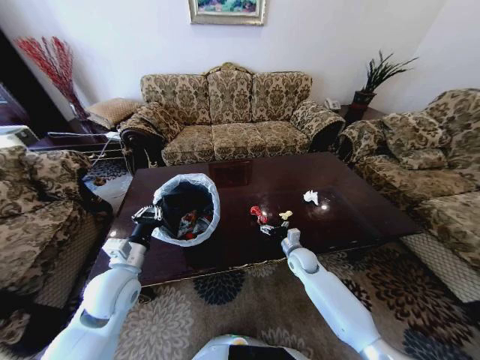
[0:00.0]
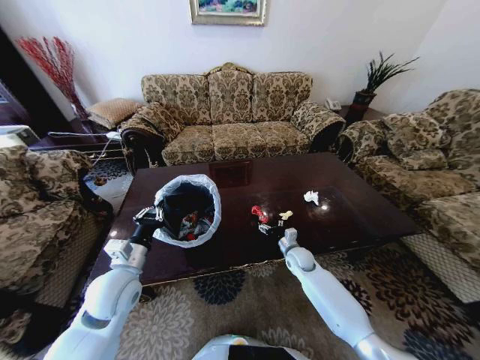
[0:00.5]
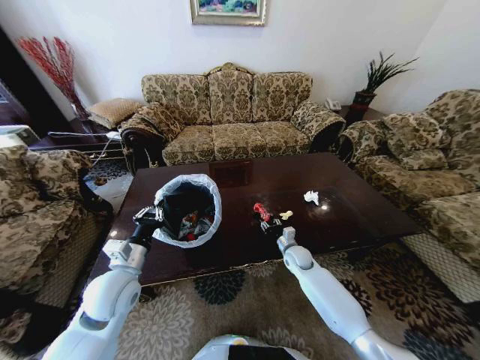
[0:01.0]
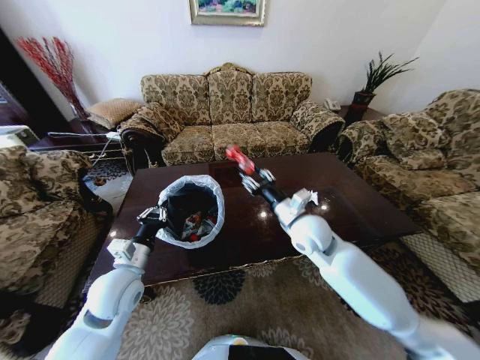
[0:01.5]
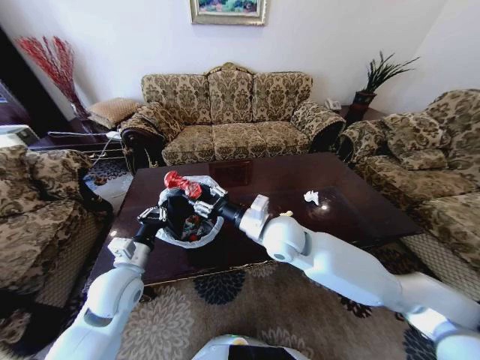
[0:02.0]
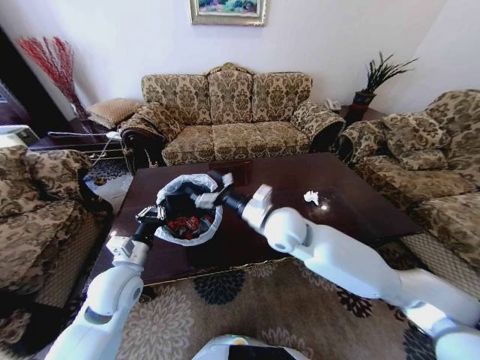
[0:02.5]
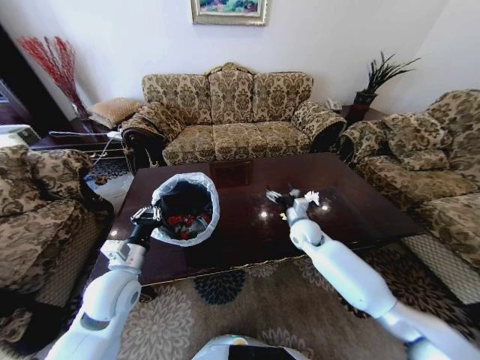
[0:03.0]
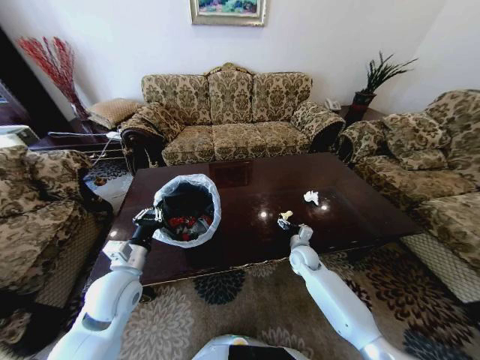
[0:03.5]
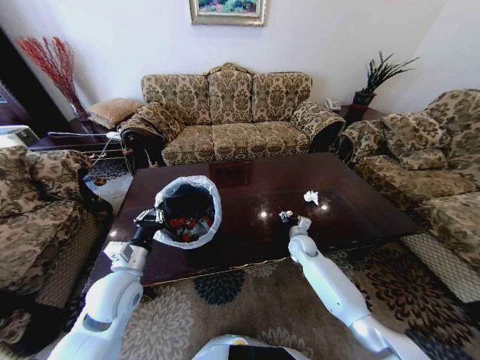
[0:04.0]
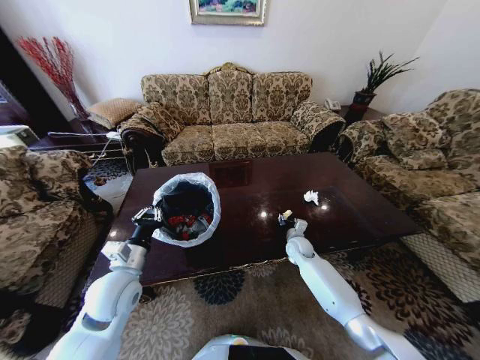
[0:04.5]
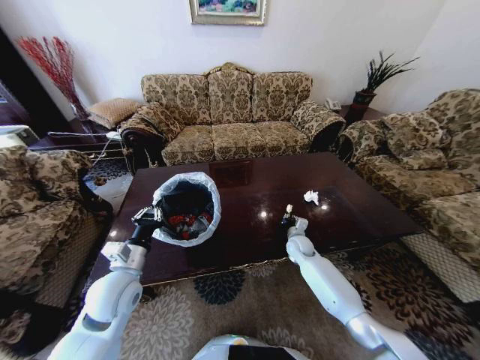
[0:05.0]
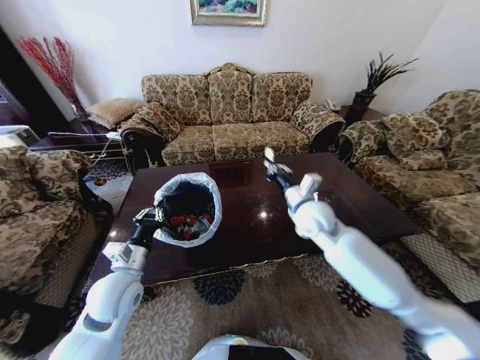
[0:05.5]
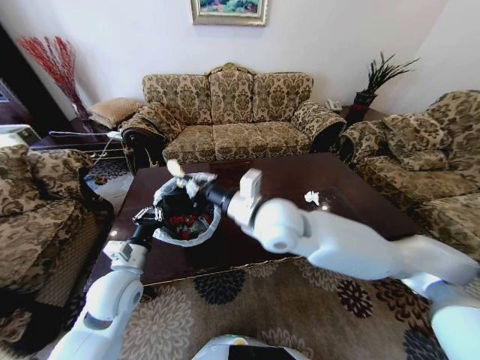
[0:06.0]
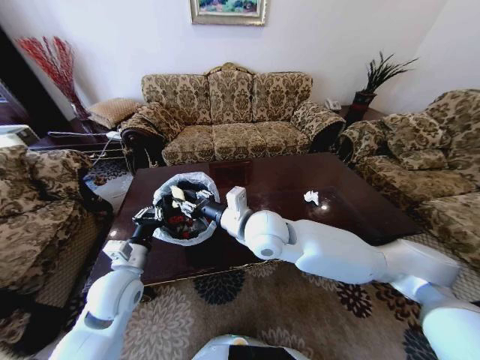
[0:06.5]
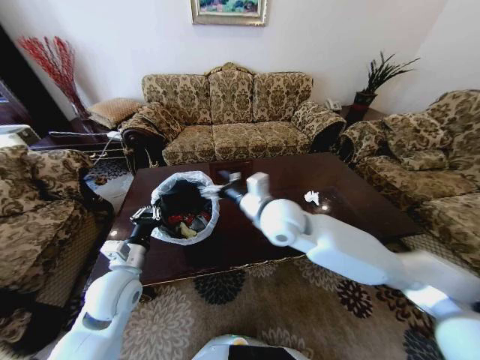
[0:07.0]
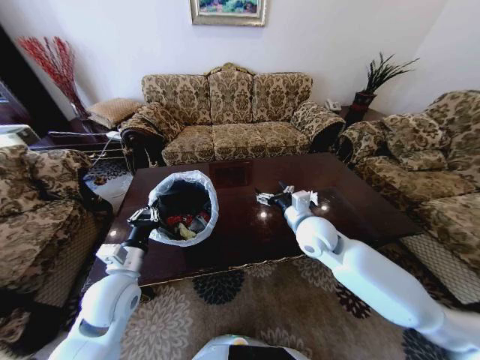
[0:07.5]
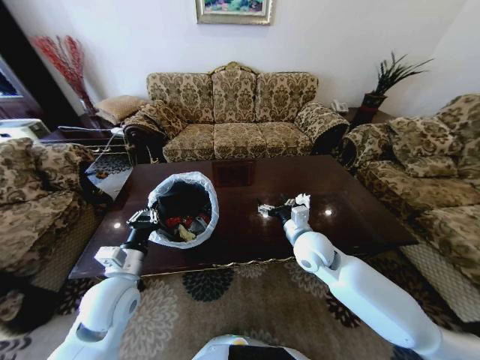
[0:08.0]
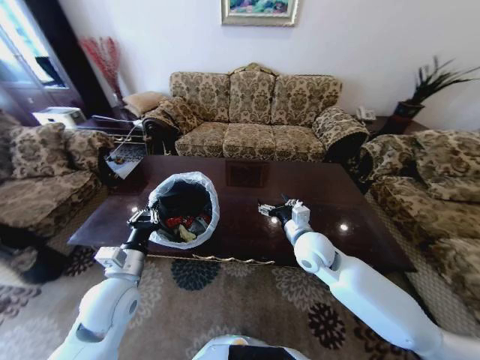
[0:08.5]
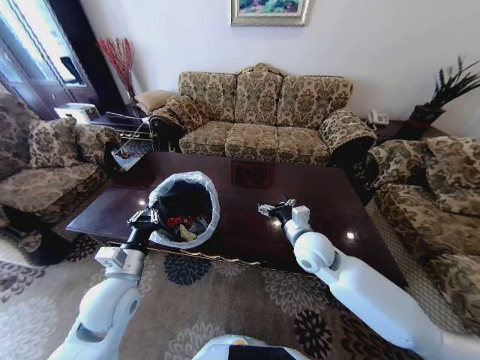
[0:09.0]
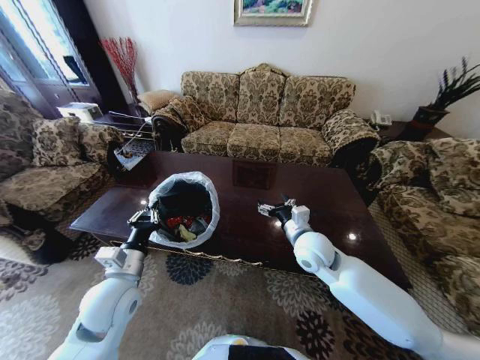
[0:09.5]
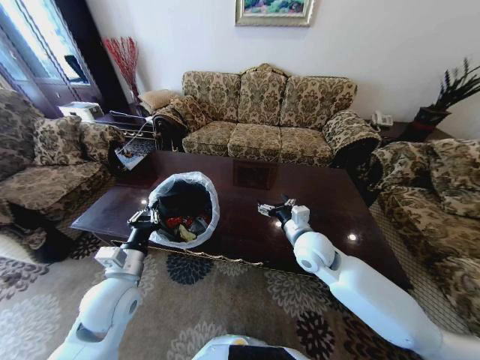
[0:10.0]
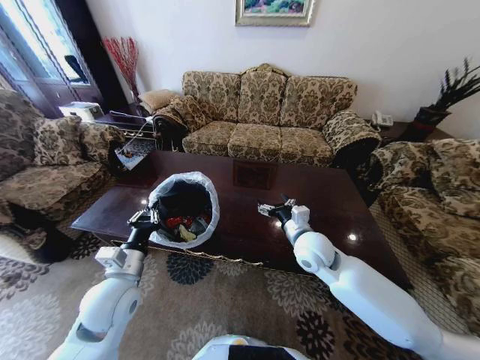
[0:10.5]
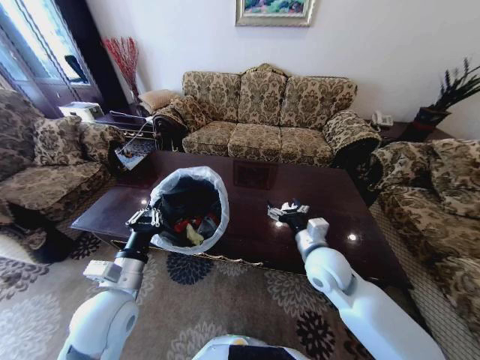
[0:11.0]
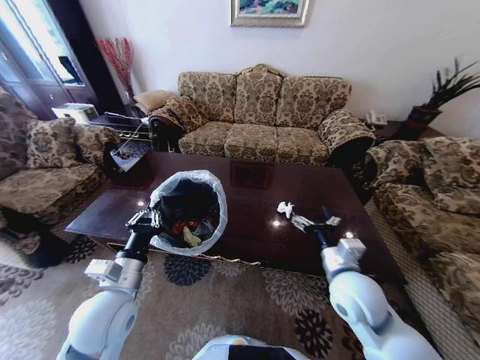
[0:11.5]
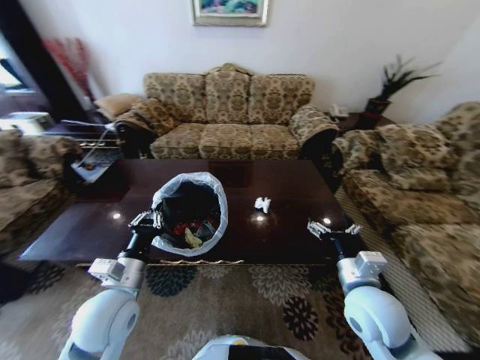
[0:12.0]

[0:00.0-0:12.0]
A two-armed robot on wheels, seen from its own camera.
Task of the whole recording: Move to the front of the table and place the trash on the table into the trash bin.
0:00.0 to 0:02.0: The right gripper is displaced upward and to the left by approximately 30 cm, and closes up.
0:02.0 to 0:04.0: The right gripper is displaced downward, to the right and forward by approximately 30 cm, and opens, then closes once more.
0:04.0 to 0:06.0: The right gripper travels upward, to the left and backward by about 40 cm, and closes up.
0:06.0 to 0:08.0: The right gripper goes approximately 20 cm downward and to the right, and opens.
0:10.0 to 0:12.0: The right gripper goes roughly 15 cm backward and to the right.

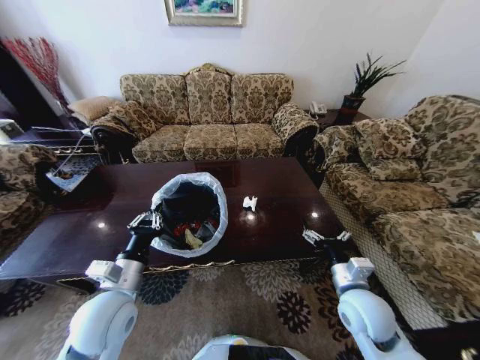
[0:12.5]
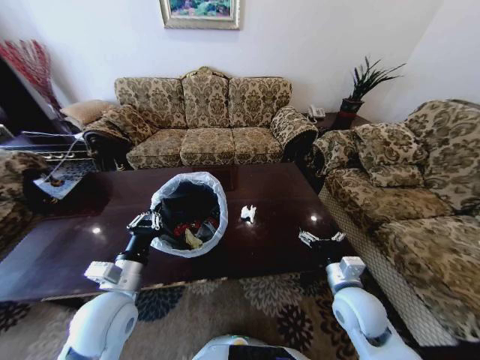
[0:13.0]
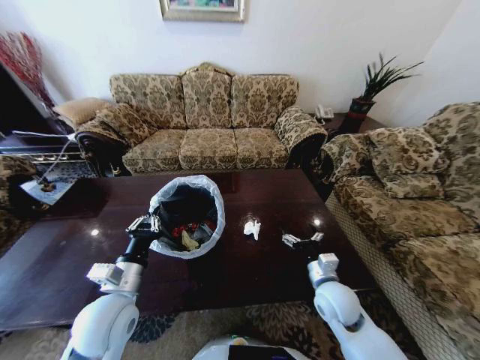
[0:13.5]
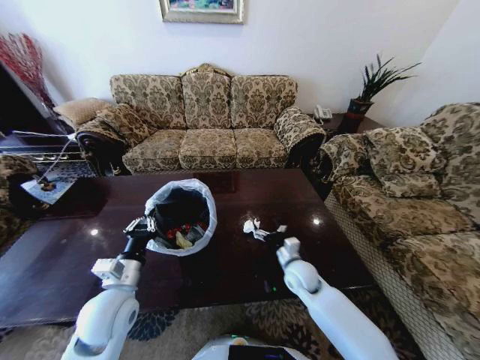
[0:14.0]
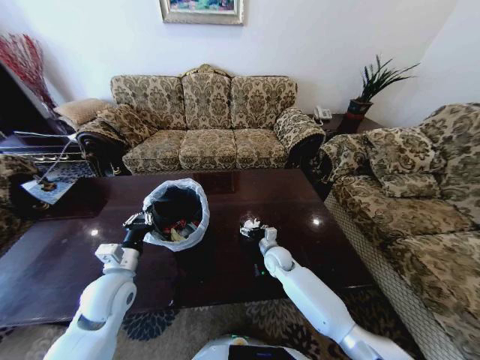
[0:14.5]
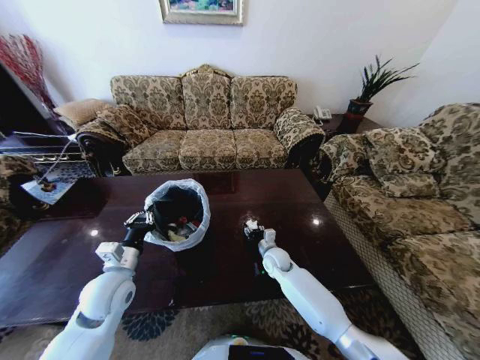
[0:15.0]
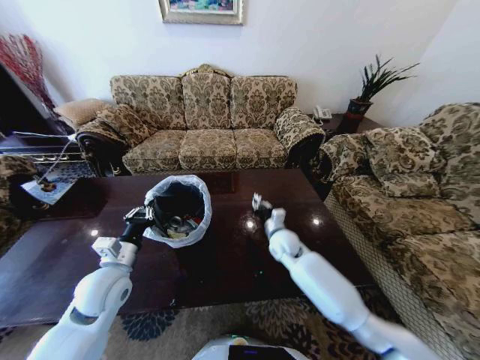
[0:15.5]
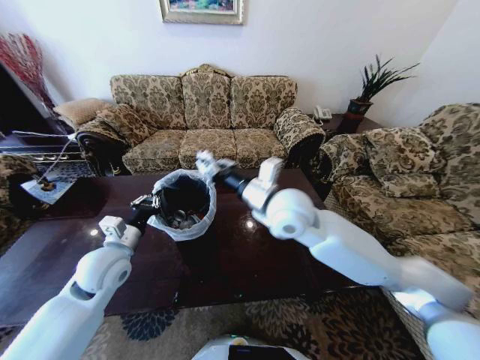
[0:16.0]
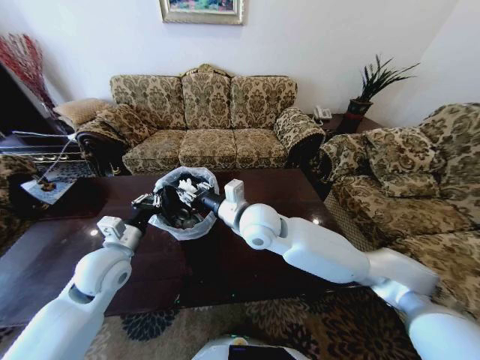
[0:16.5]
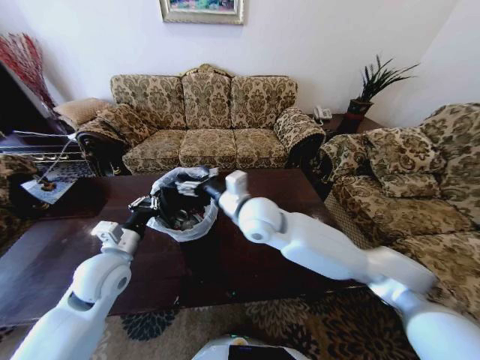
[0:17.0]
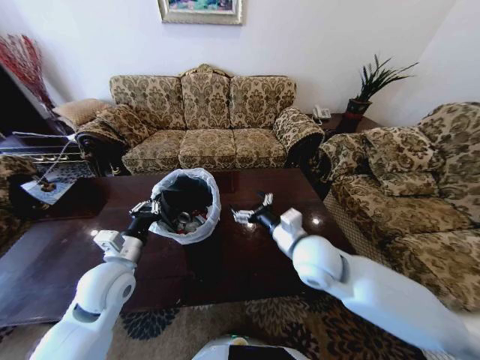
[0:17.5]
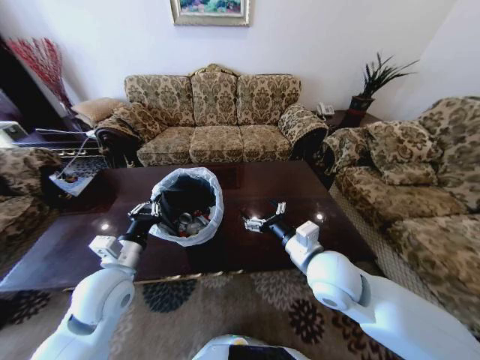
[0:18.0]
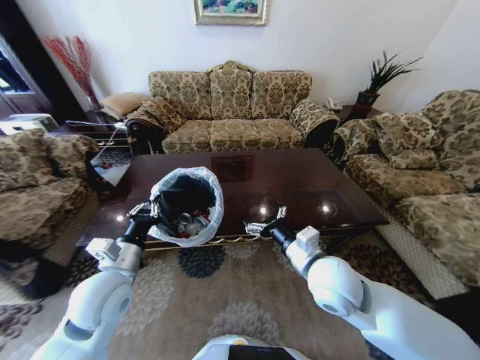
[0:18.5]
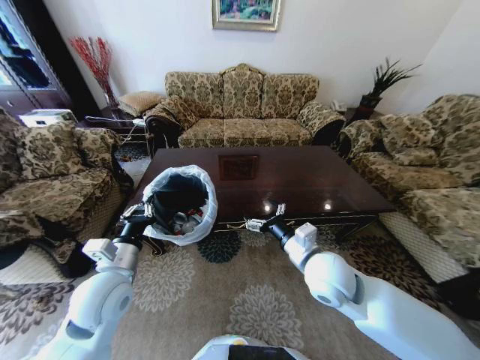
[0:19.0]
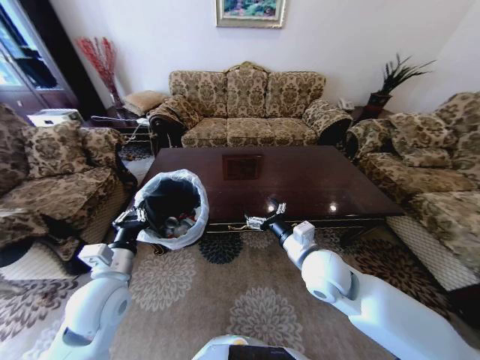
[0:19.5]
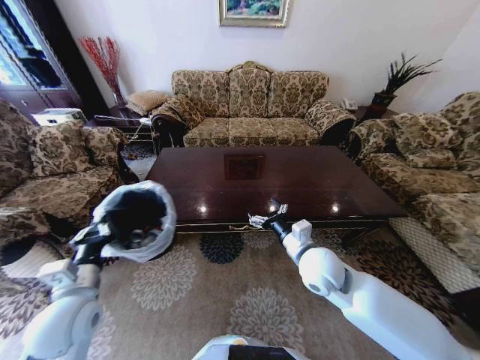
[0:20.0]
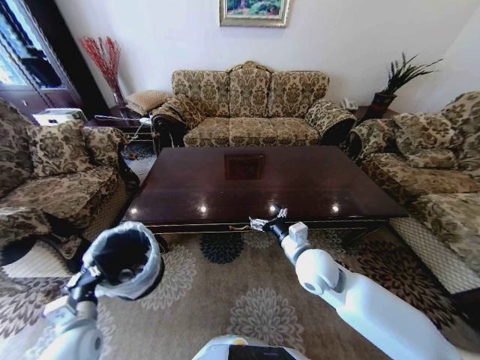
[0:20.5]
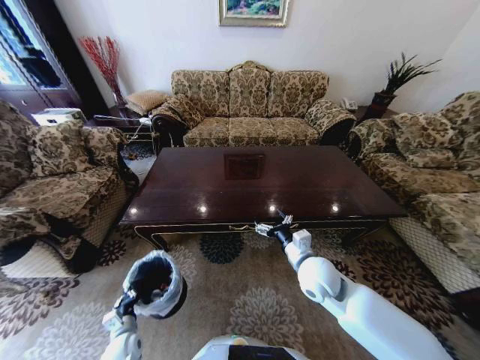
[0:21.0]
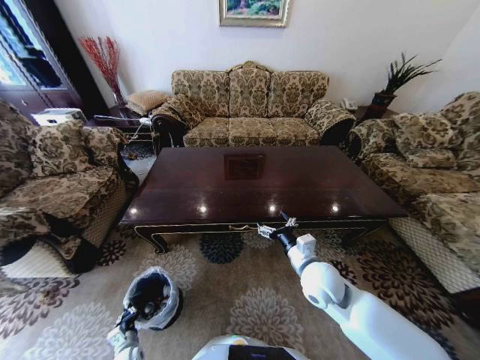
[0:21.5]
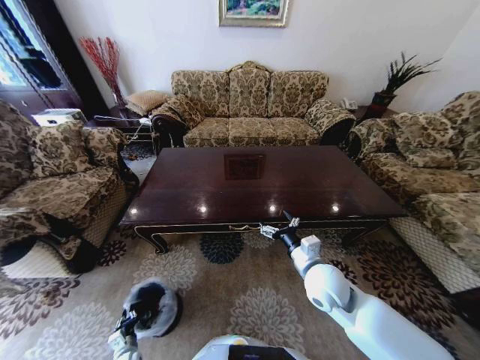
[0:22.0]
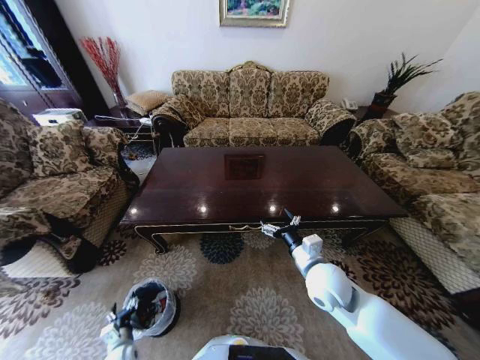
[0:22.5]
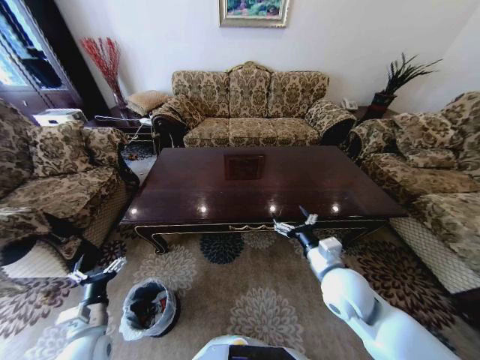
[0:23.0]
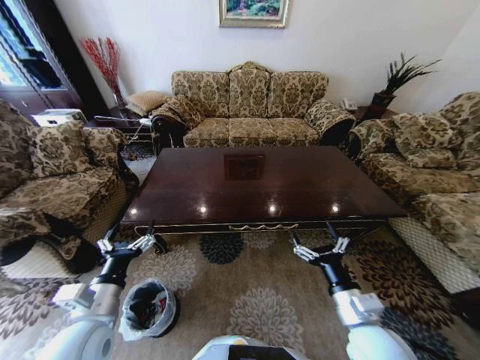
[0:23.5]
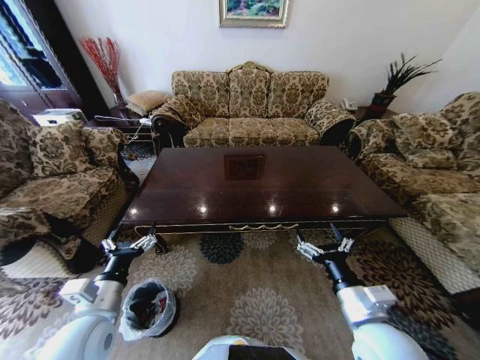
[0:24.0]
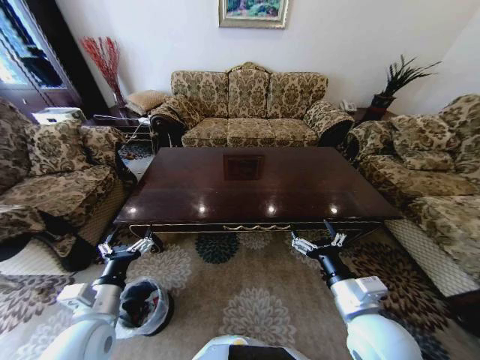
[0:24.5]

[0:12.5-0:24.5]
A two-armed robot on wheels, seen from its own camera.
Task of the whole recording: Move to the front of the table and place the trash on the table into the trash bin.
0:12.5 to 0:14.5: The left gripper changes place by approximately 5 cm; the right gripper shifts approximately 25 cm forward, downward and to the left.
0:14.5 to 0:16.5: The right gripper goes some 30 cm upward, and closes its fingers. Meanwhile the left gripper goes roughly 5 cm upward.
0:16.5 to 0:18.5: The right gripper is displaced to the right and backward by some 20 cm, and opens up. Meanwhile the left gripper shifts approximately 5 cm backward.
0:18.5 to 0:20.5: The left gripper shifts roughly 20 cm downward, to the left and backward; the right gripper shifts roughly 5 cm downward.
0:20.5 to 0:22.5: The left gripper shifts approximately 25 cm downward, and opens up.
0:22.5 to 0:24.5: The right gripper shifts about 10 cm backward, while the left gripper travels upward by about 35 cm.

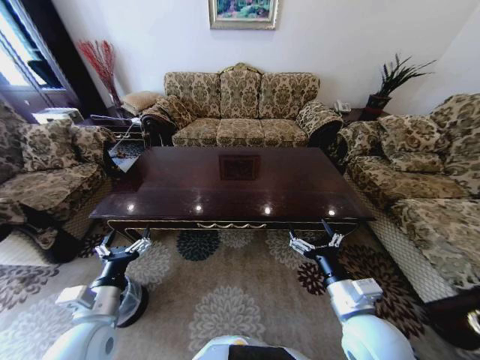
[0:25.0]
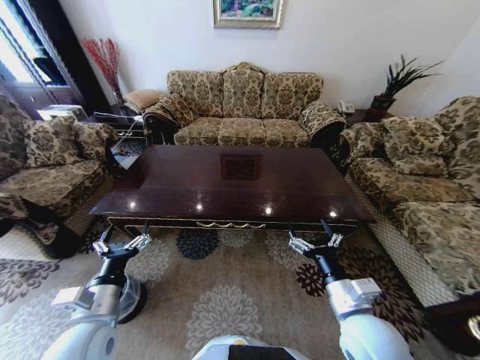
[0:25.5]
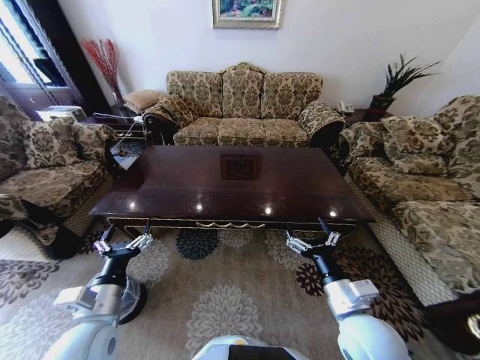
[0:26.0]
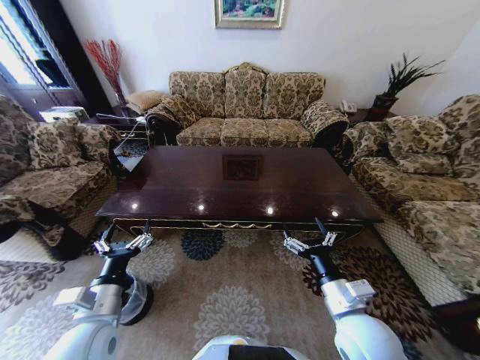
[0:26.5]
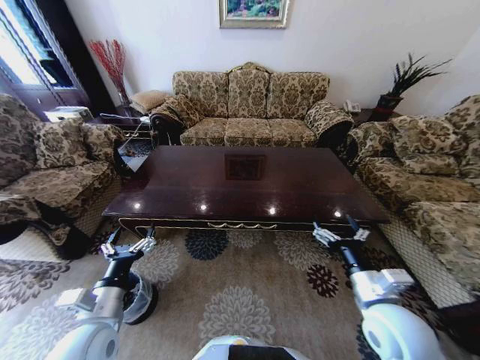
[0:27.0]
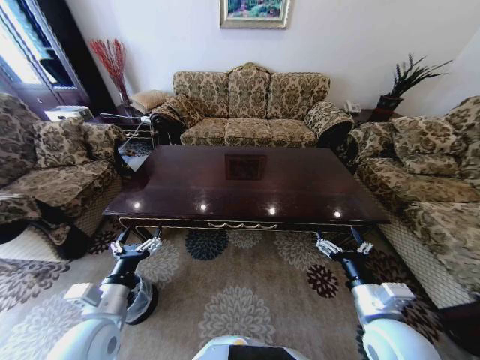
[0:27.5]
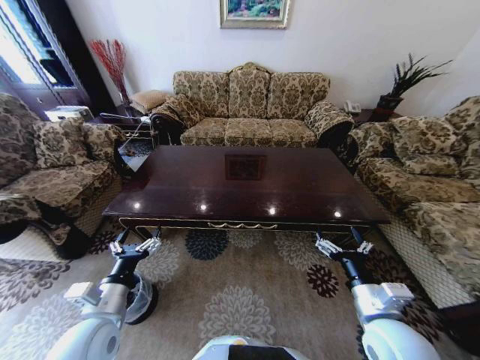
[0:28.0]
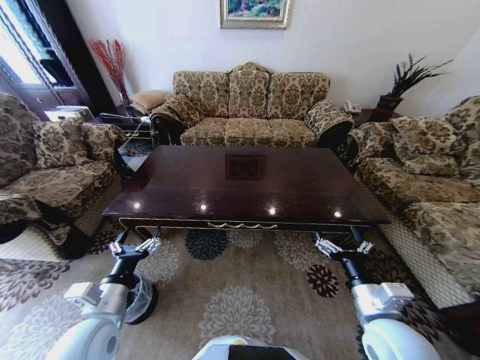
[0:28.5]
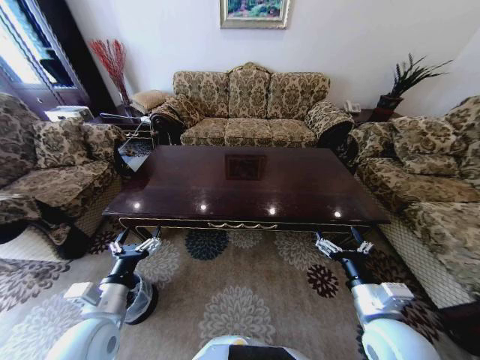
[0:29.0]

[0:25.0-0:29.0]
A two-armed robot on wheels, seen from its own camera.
Task of the whole recording: Move to the front of the table and place the trash on the table into the trash bin.
0:25.0 to 0:27.0: The right gripper shifts by about 5 cm.
0:27.0 to 0:29.0: The grippers stay close to where they were, moving slightly.
